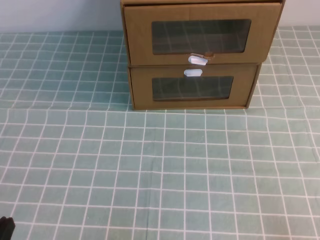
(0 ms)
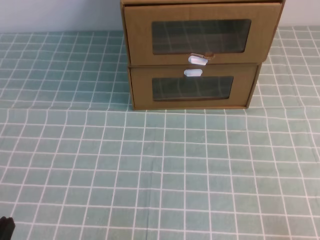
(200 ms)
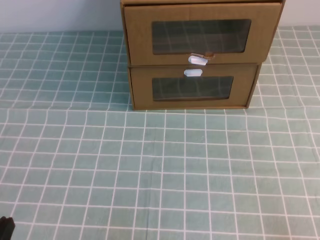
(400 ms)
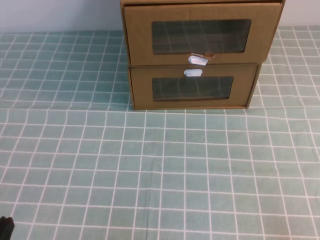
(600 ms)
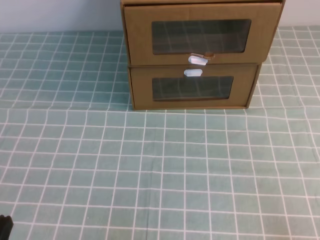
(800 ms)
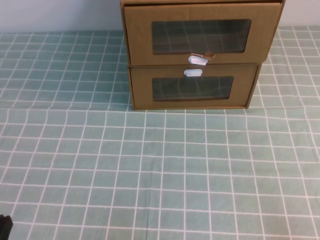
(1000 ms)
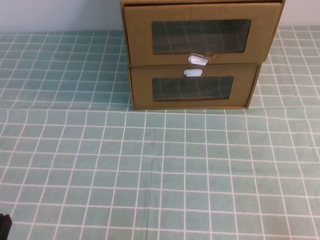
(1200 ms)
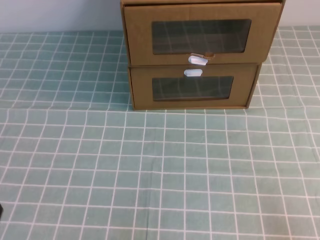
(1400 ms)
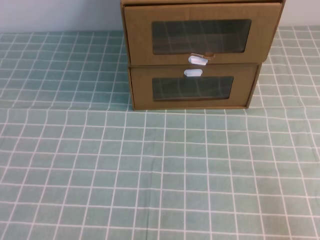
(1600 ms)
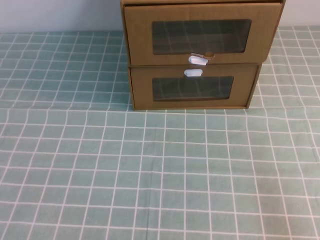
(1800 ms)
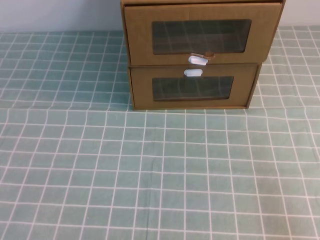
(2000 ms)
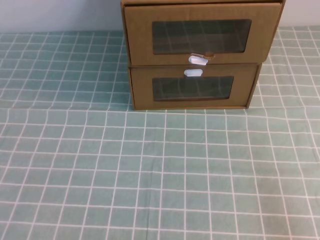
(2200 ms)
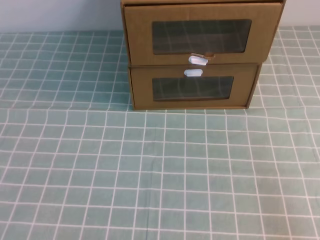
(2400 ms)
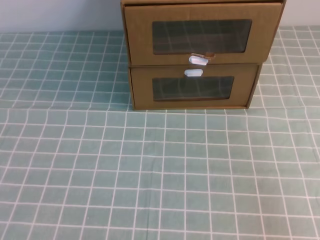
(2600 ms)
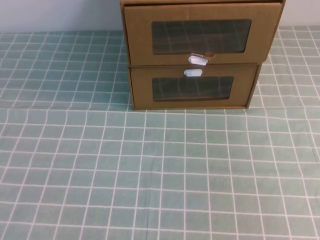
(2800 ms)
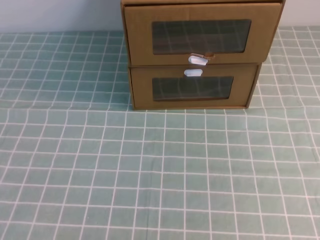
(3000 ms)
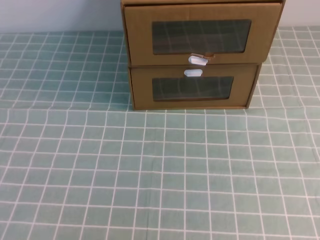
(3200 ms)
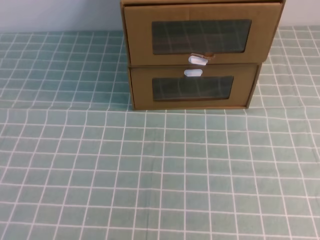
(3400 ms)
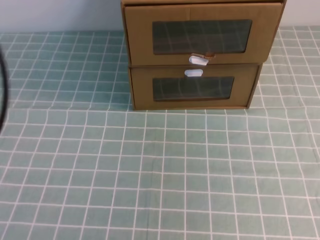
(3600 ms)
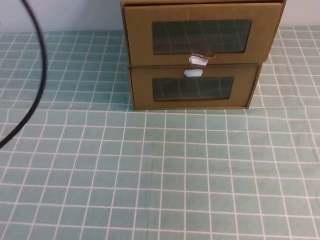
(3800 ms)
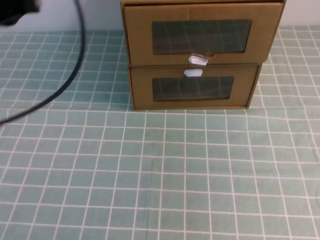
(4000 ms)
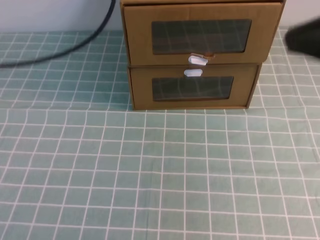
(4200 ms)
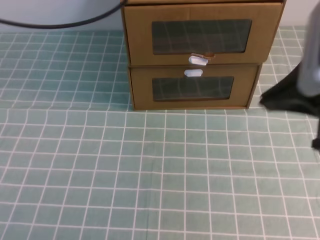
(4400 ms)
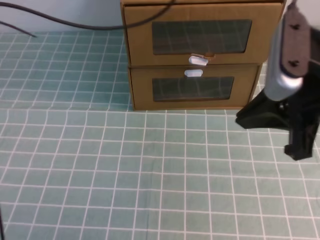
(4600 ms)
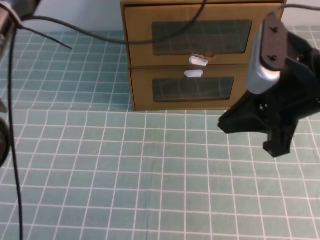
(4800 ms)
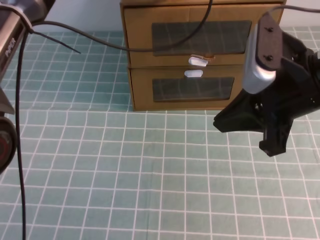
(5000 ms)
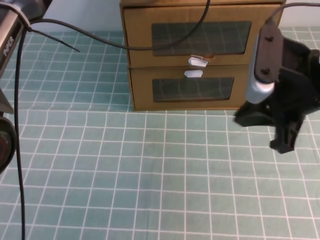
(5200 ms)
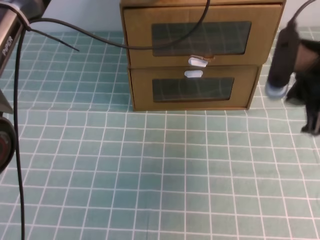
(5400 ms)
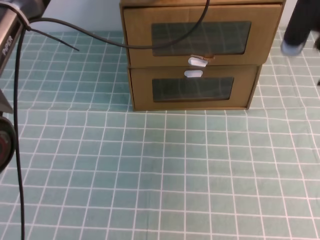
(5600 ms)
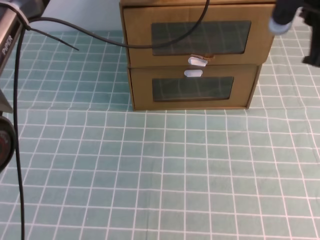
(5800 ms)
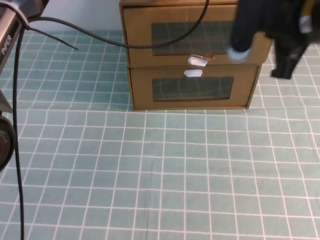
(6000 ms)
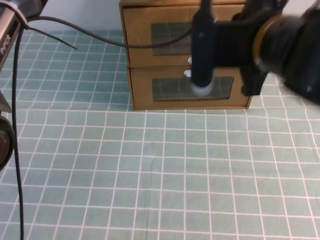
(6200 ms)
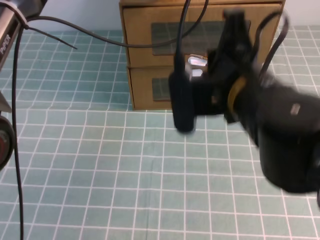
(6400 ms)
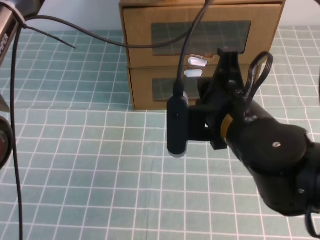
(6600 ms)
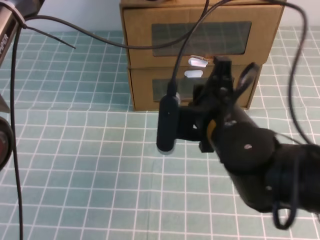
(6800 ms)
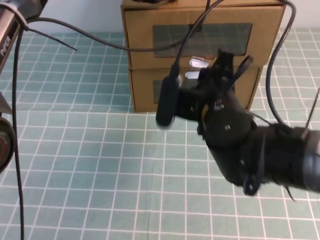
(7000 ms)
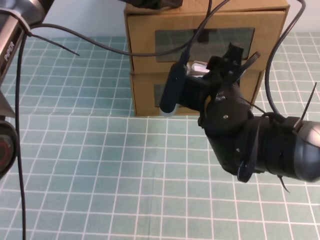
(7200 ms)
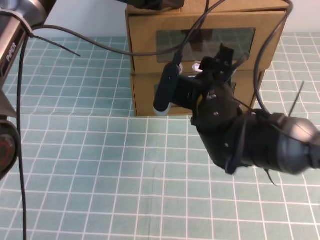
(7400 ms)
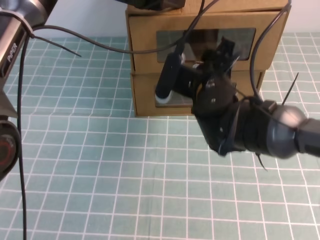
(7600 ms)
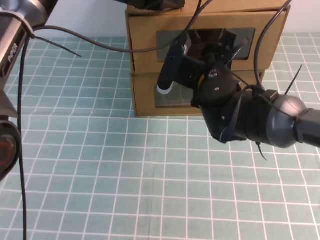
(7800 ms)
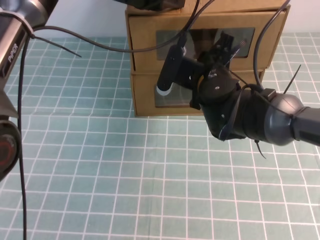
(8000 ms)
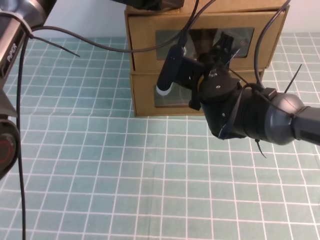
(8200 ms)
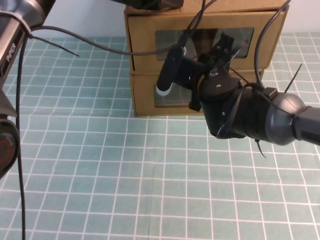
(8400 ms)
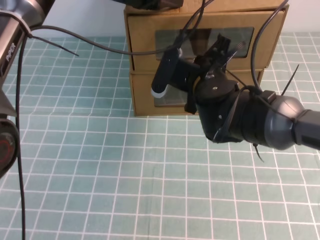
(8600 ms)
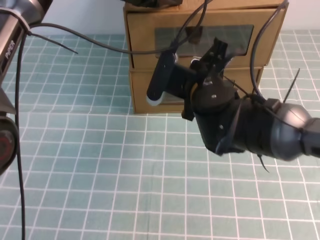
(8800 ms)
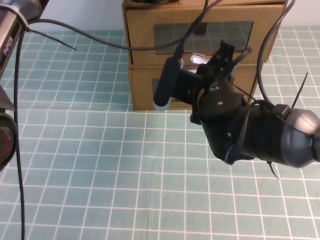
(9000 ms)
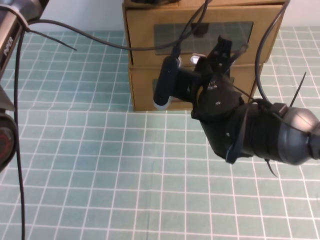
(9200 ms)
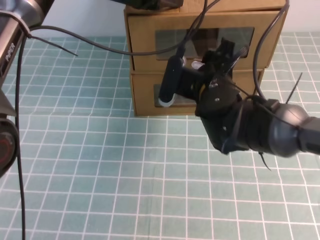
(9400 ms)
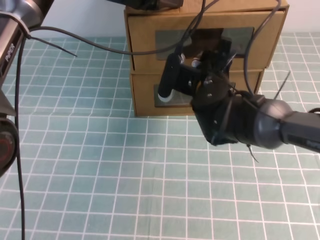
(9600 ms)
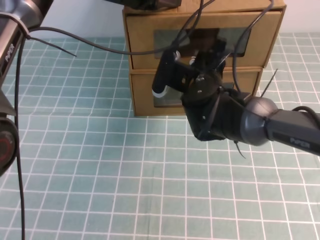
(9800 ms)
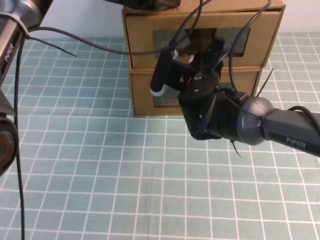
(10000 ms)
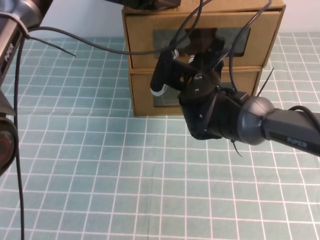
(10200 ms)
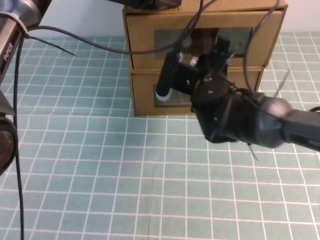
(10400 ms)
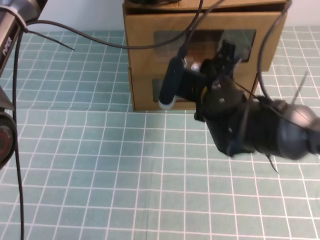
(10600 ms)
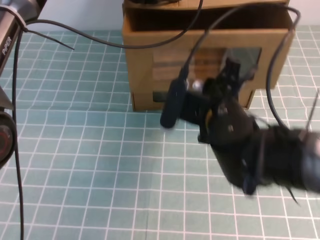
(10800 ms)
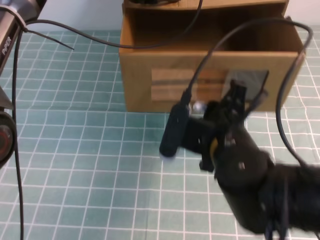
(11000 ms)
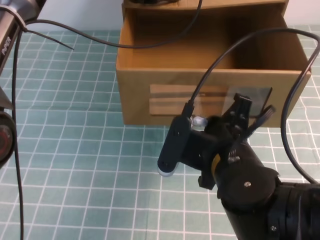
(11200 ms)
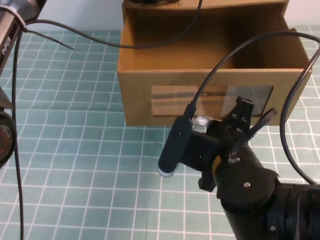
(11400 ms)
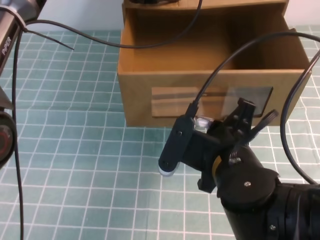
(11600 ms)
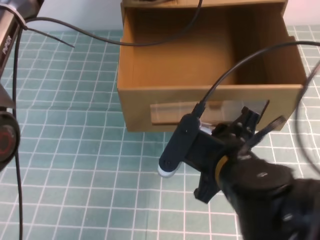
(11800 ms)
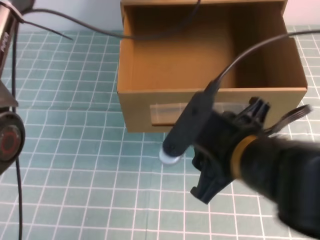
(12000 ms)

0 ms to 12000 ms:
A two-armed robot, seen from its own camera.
Task of the whole recording: open the shoebox on the cyan tablecloth.
3000 ms to 4400 ms: The right gripper travels forward and to the left by roughly 25 cm. The left gripper goes about 40 cm forward.
4400 ms to 6000 ms: The left gripper heads to the right, downward and forward, covering about 15 cm, while the right gripper is displaced forward by approximately 10 cm.
6000 ms to 7600 ms: The right gripper travels downward and to the left by about 15 cm, and opens its fingers.
7600 ms to 9000 ms: The right gripper closes up.
9000 ms to 10400 ms: The right gripper opens its fingers.
10400 ms to 12000 ms: The right gripper is displaced backward by roughly 20 cm, and opens.

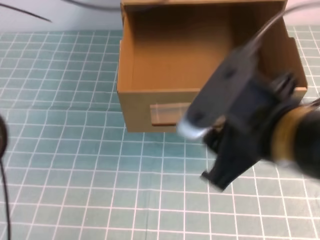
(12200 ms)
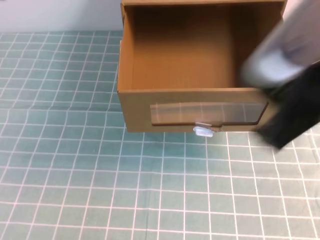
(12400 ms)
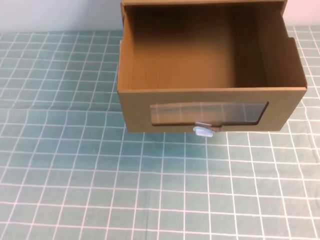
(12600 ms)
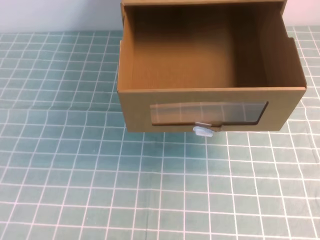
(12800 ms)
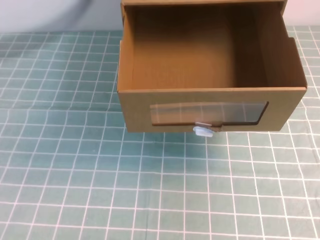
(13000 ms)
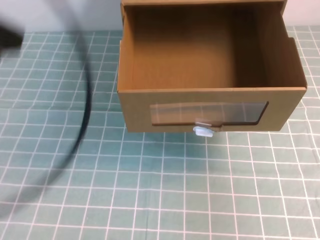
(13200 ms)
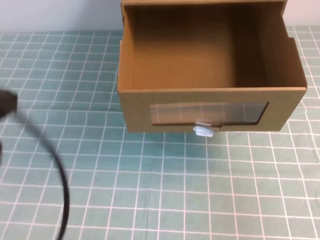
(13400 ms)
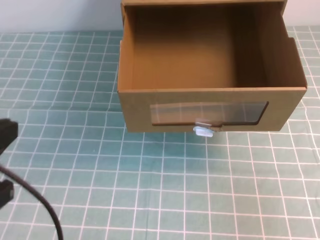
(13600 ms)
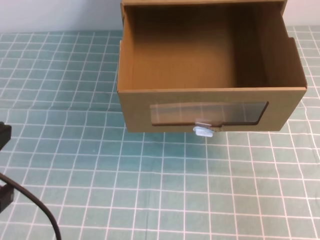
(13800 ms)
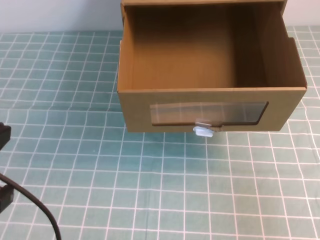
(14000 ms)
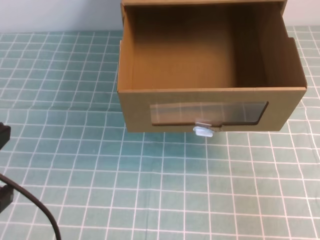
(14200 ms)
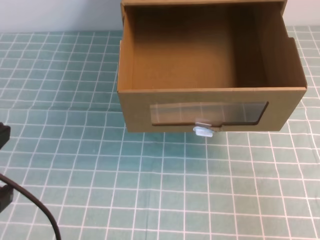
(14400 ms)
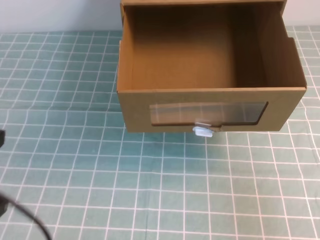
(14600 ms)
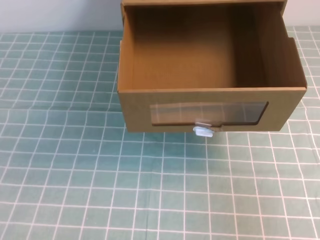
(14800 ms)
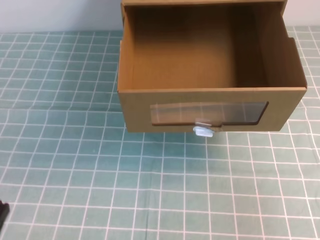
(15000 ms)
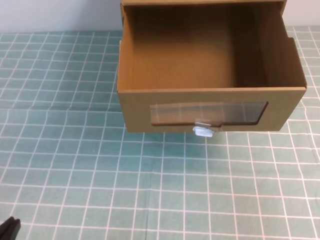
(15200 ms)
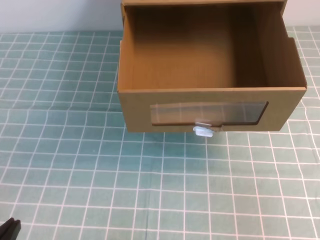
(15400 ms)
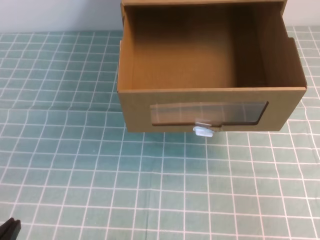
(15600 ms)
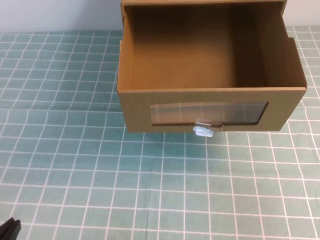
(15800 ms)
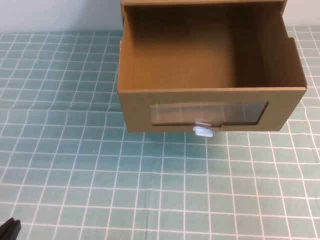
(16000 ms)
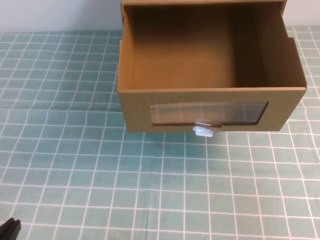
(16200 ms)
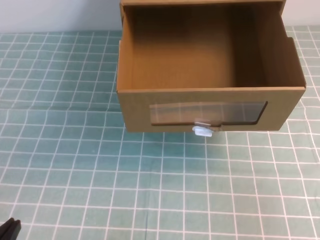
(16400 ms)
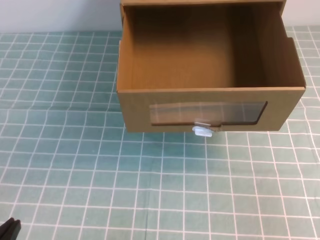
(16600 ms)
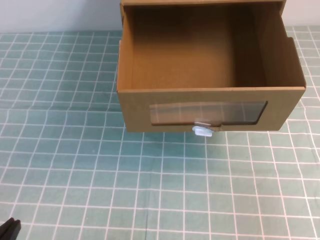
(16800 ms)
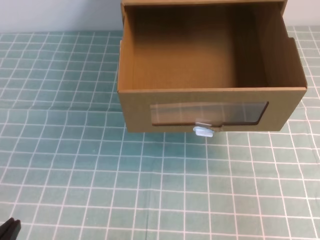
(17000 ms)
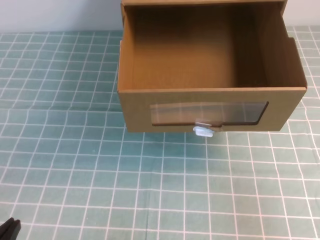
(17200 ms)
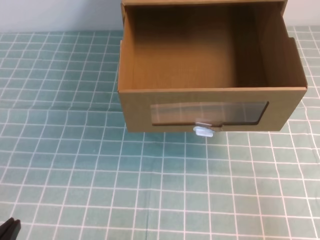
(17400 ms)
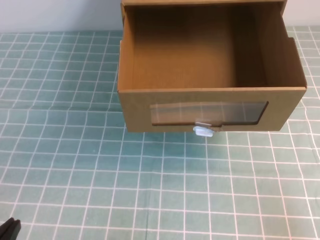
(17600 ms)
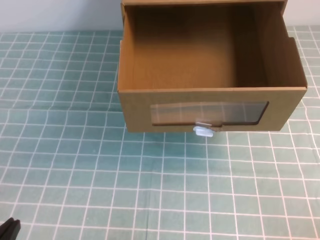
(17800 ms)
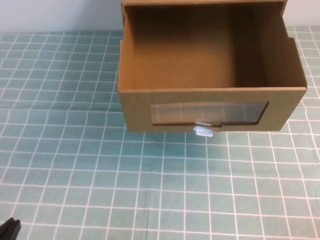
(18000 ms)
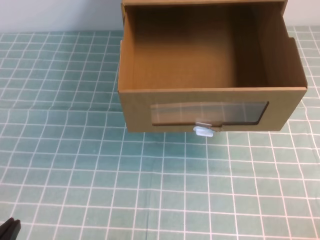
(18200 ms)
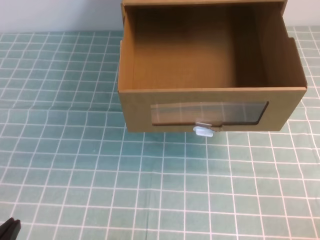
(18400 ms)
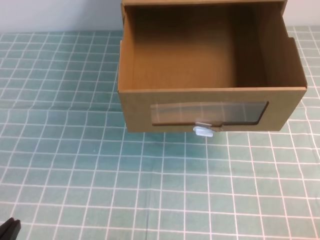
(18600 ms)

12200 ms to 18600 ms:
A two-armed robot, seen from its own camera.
Task of the whole recording: open the shoebox on the cyan tablecloth.
Step, 12200 ms to 18600 ms: Open the shoe box.
12200 ms to 13800 ms: The left gripper moves backward and to the left, roughly 35 cm, while the right gripper goes some 20 cm to the right, and closes.
13800 ms to 15400 ms: The left gripper travels downward by roughly 20 cm.
17000 ms to 18600 ms: The right gripper is displaced downward by roughly 15 cm.

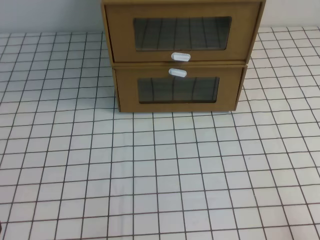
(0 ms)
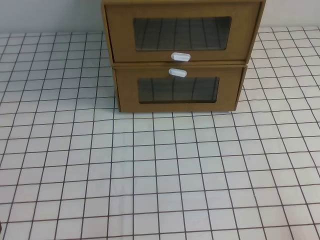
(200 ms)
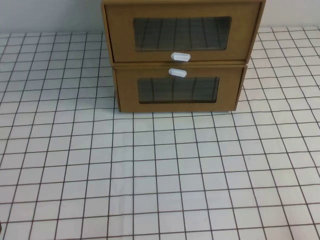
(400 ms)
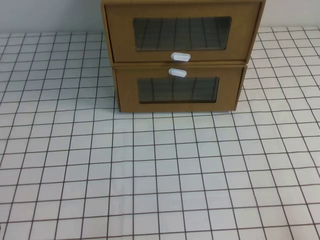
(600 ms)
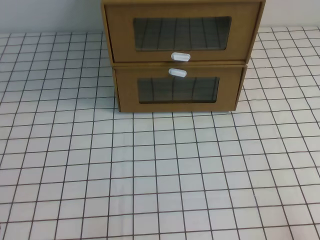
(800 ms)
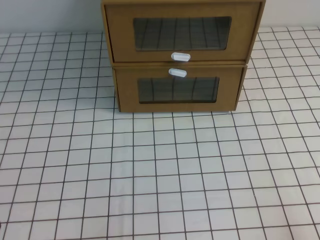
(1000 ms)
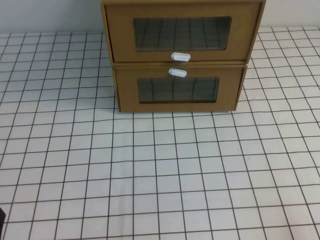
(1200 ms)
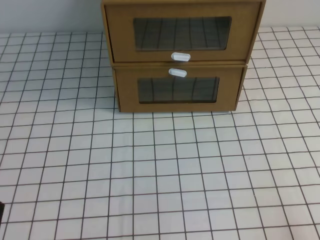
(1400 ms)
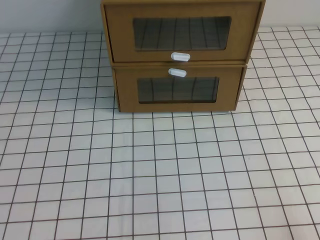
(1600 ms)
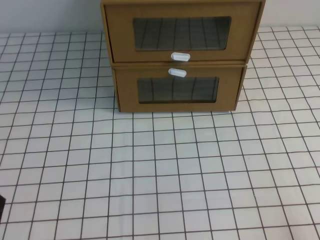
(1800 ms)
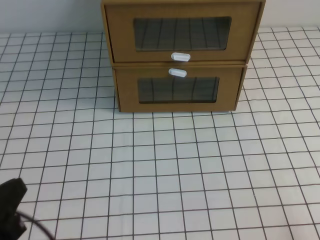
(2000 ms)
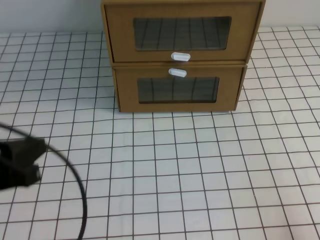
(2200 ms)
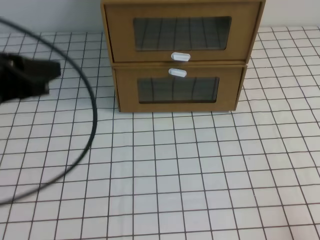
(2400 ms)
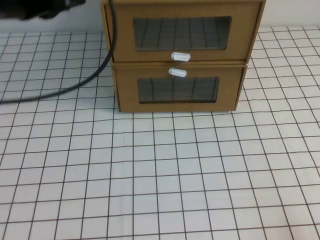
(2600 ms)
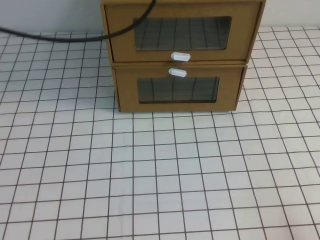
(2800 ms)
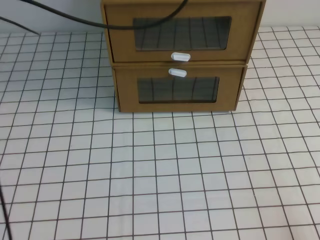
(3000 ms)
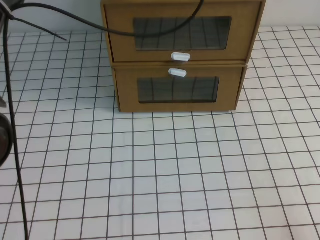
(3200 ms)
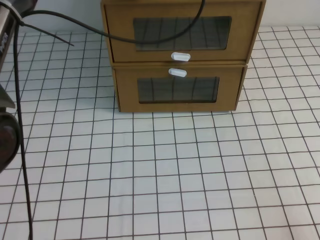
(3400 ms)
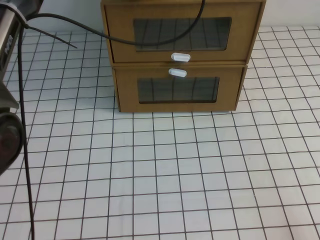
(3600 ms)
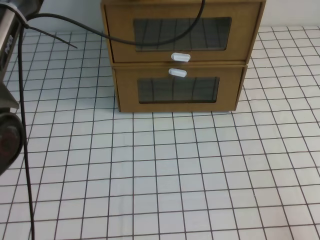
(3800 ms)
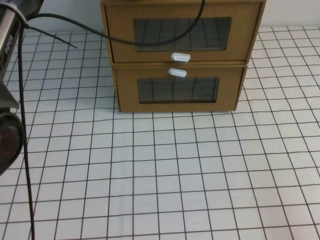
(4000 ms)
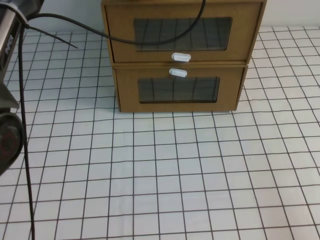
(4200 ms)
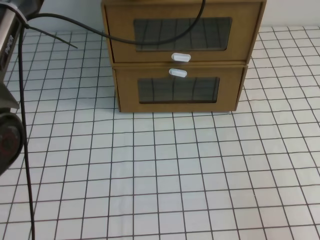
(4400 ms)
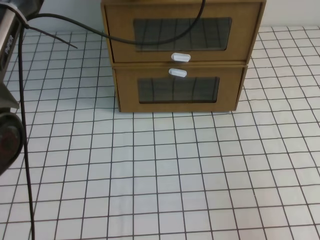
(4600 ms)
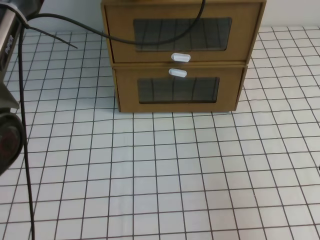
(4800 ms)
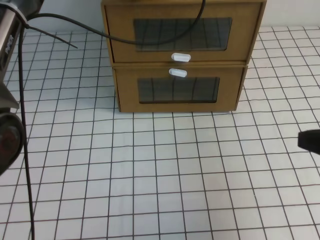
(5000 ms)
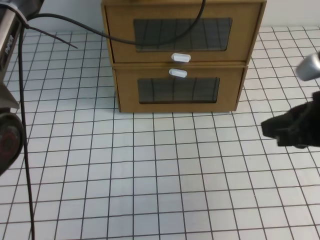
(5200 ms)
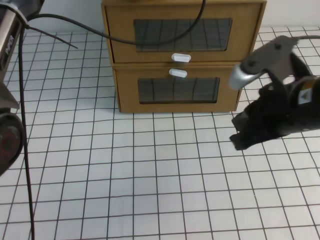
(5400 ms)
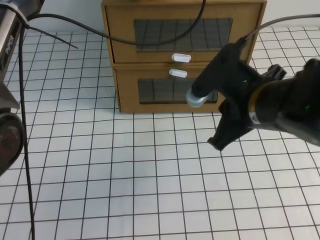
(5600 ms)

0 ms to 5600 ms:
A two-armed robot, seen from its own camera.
Task of the whole recording: open the shoebox on the white tablecloth.
1400 ms to 2800 ms: The left gripper shifts approximately 40 cm forward and upward.
2800 ms to 4200 ms: The left gripper goes roughly 15 cm forward, to the right and downward.
4200 ms to 5600 ms: The right gripper travels forward, to the left and upward by roughly 30 cm.
